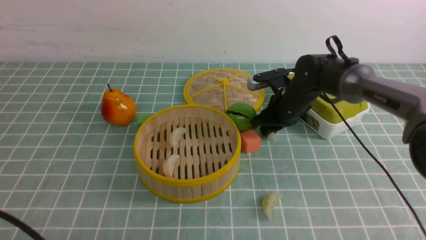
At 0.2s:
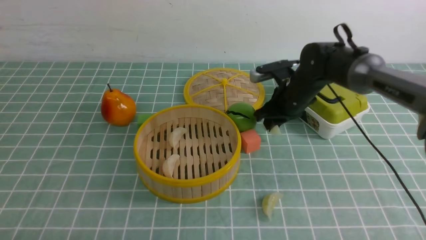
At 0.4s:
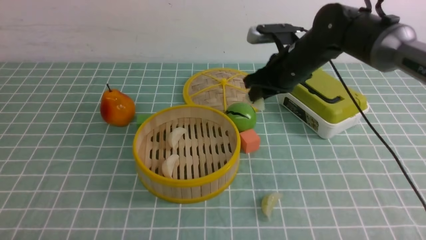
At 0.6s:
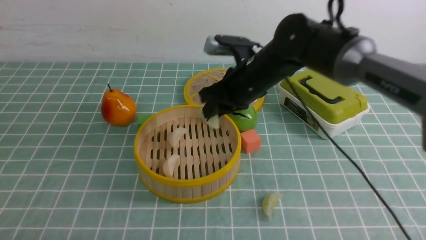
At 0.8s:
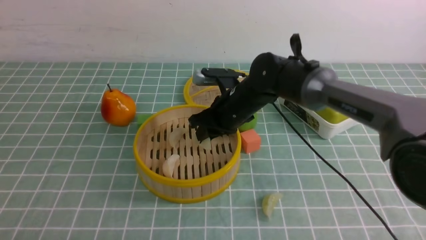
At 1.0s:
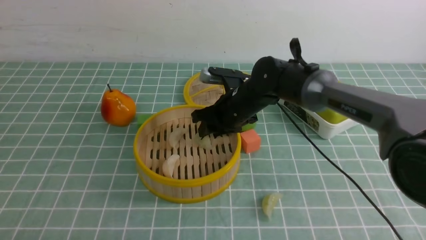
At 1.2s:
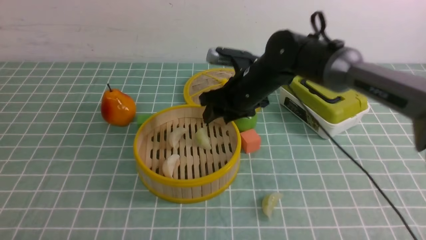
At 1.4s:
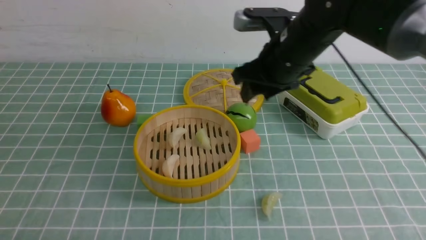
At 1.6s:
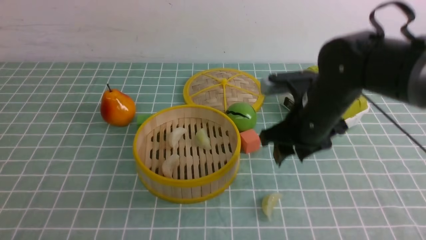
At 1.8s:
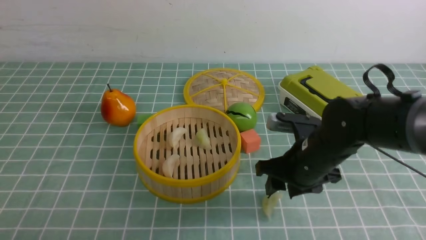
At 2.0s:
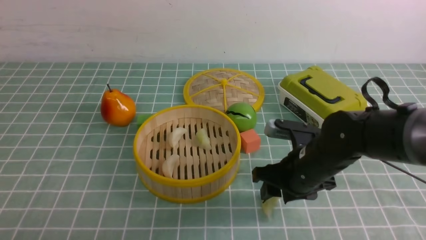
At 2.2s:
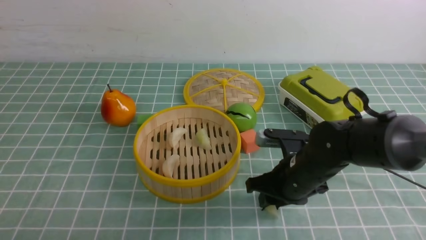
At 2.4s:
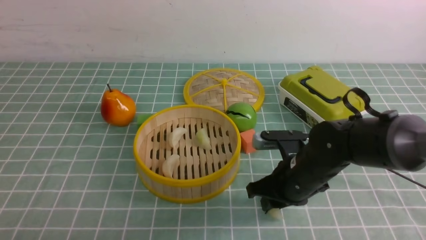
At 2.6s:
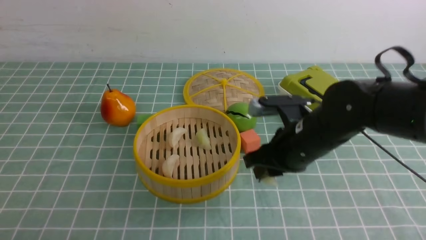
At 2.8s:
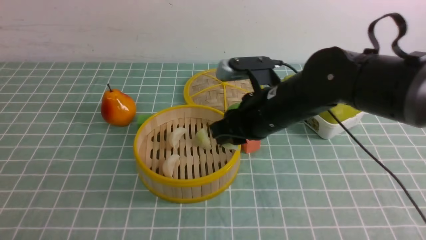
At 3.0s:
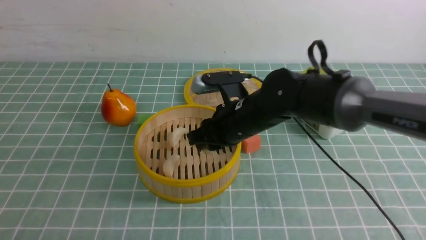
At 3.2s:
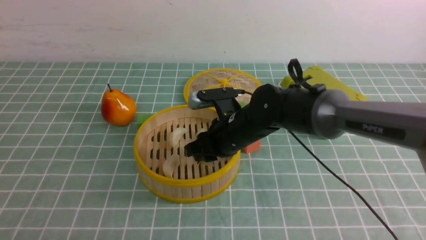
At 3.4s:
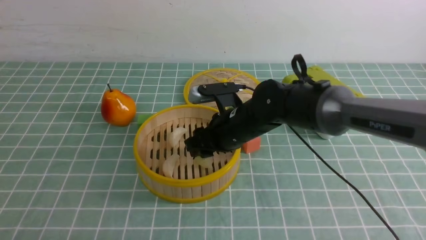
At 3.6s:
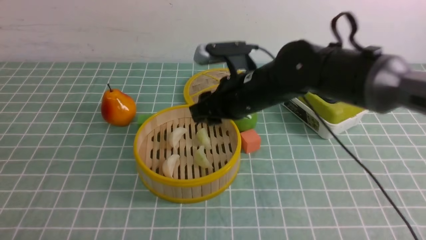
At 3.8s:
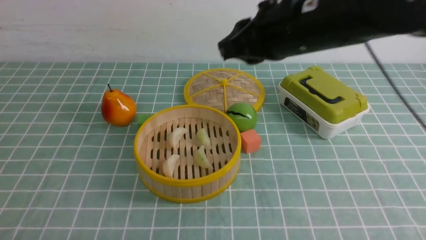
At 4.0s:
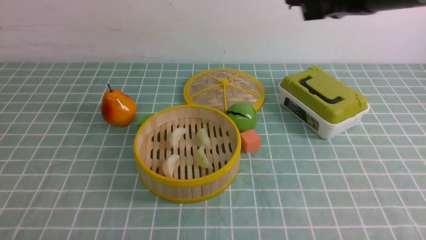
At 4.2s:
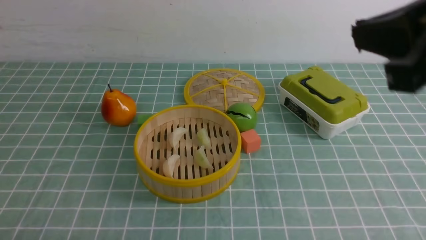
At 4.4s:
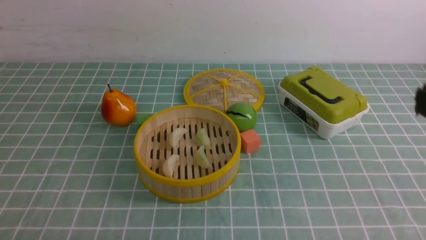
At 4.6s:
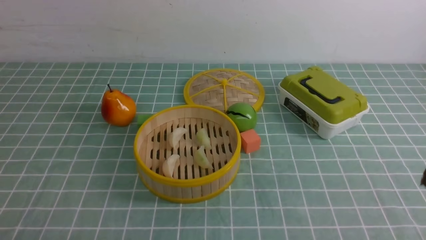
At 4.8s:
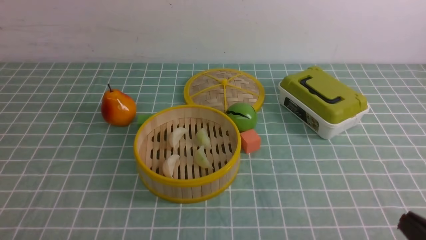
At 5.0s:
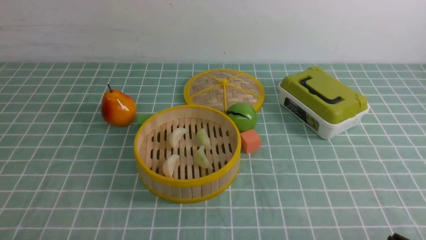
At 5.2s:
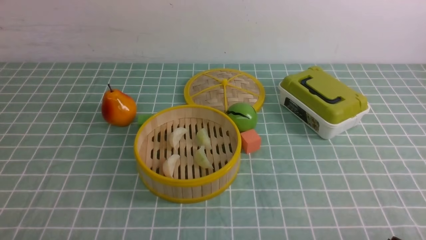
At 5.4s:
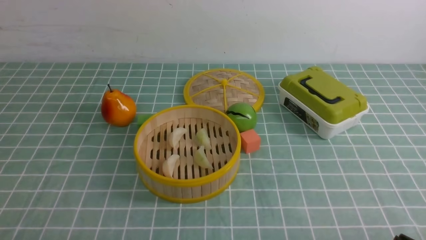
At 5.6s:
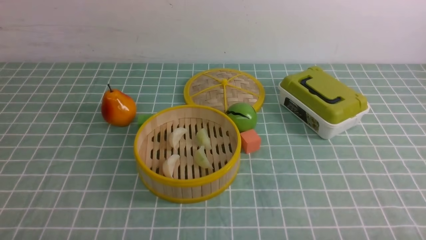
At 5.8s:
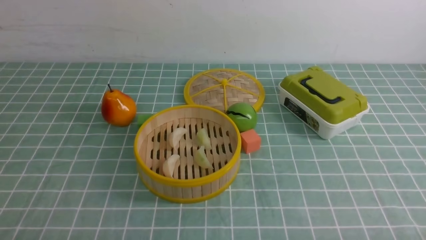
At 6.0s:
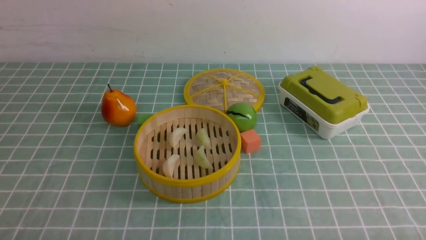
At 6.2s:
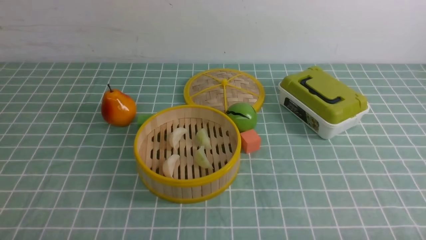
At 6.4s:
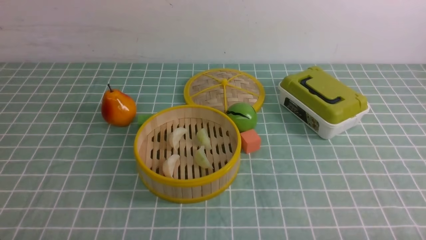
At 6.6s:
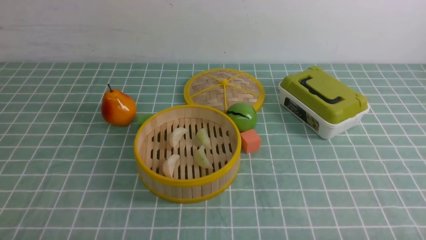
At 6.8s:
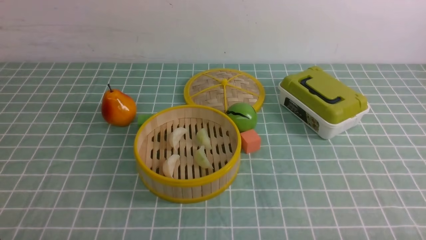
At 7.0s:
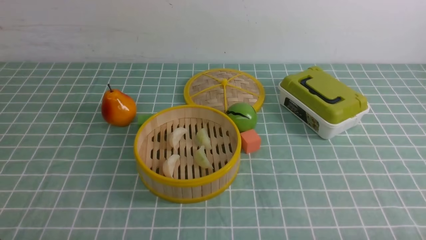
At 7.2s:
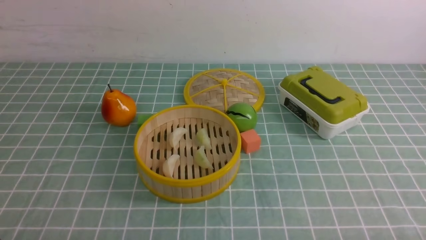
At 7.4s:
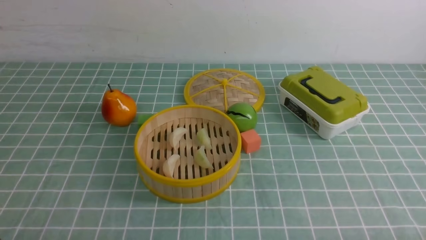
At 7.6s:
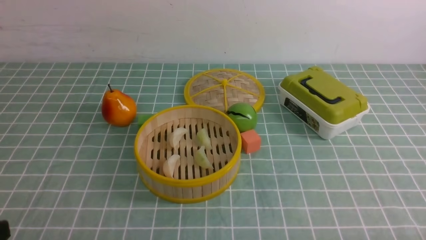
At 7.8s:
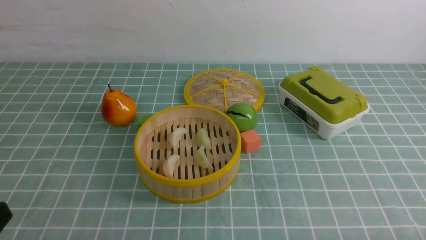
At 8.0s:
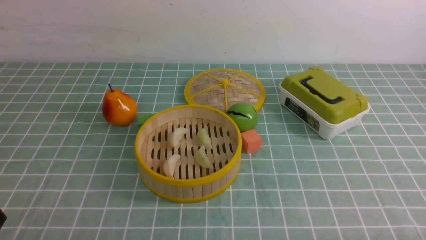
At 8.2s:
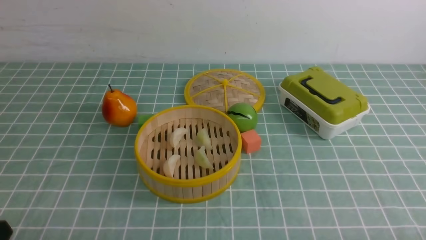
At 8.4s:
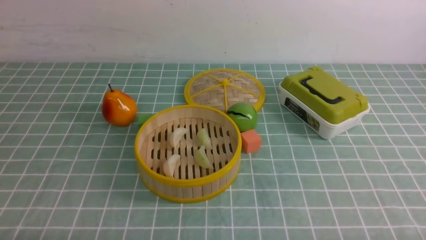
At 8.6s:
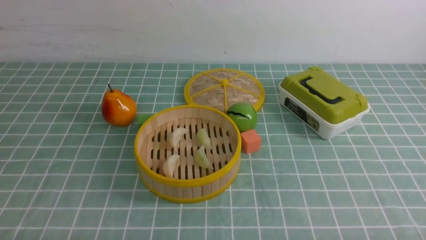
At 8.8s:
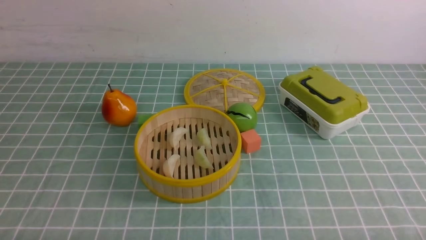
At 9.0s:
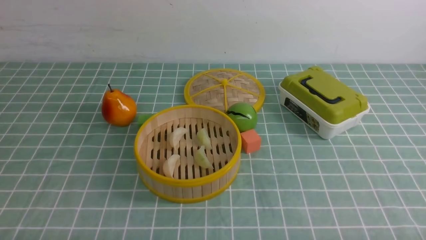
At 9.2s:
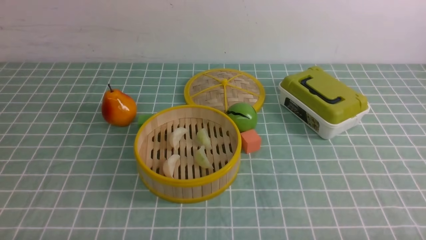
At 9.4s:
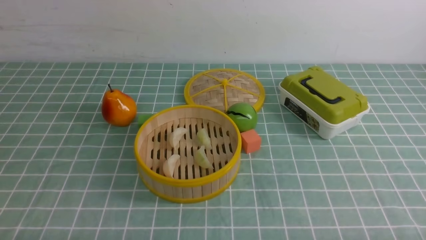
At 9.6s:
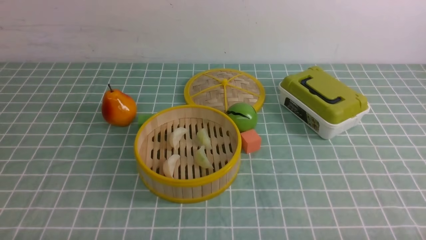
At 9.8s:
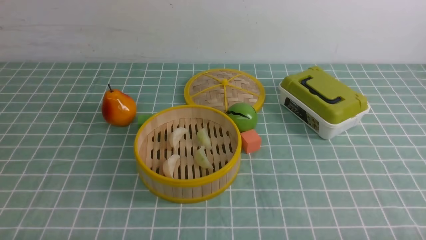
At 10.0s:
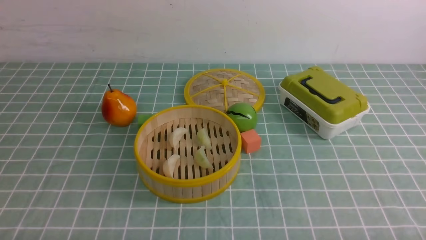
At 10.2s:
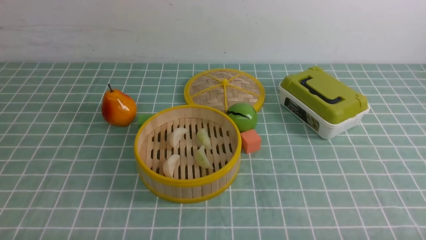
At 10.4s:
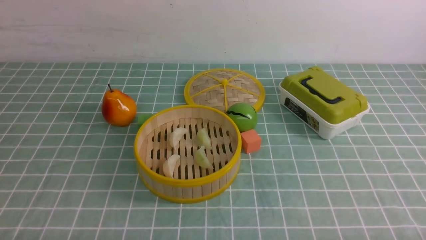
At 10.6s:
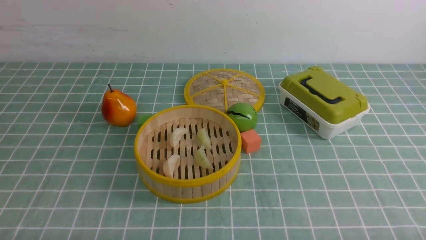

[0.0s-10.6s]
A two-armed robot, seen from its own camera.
Task of the whole recording: put the dumplings into the steamer on the table with the blue tablecloth.
Step, 0.6s to 1.4s: use the right arm to put the dumpling into the steamer.
Step, 1.6s to 2.6s: use the right arm to grab a dumpling.
Step, 3.0s to 3.6s: use the right arm to put the dumpling into the steamer.
0.0s to 1.6s: The right gripper goes some 15 cm backward and upward, and opens its fingers.
1.6s to 3.0s: The right gripper heads to the left, covering about 10 cm, and closes up.
3.0s to 4.6s: The right gripper moves backward and to the right, about 35 cm, and closes up.
9.0s to 10.6s: Both grippers stay put.

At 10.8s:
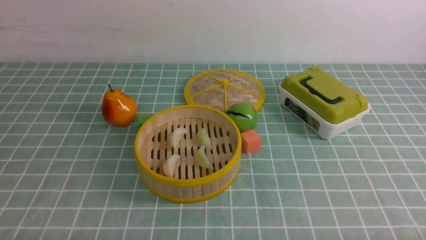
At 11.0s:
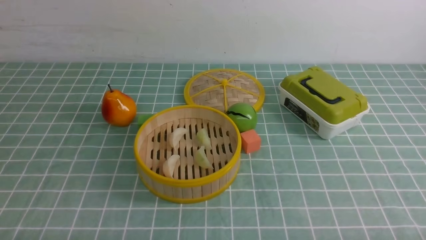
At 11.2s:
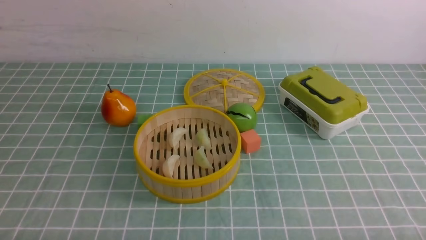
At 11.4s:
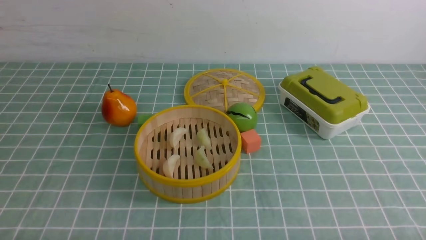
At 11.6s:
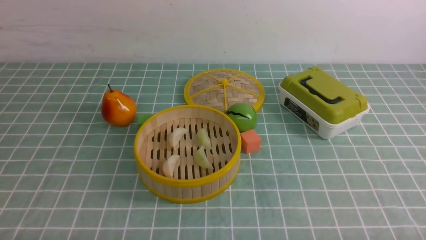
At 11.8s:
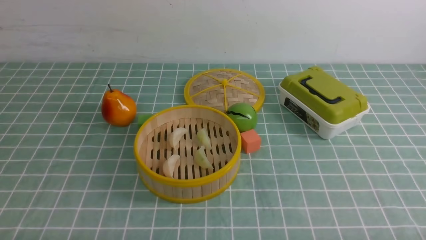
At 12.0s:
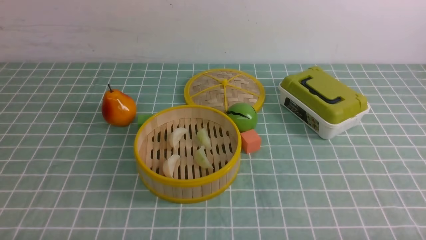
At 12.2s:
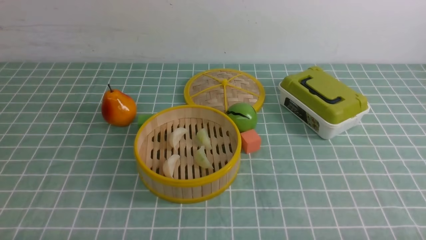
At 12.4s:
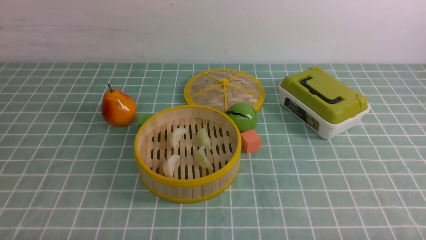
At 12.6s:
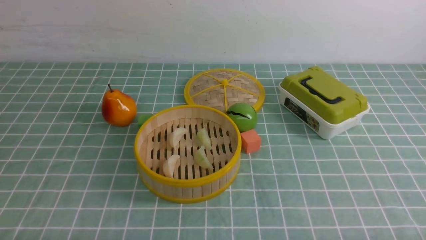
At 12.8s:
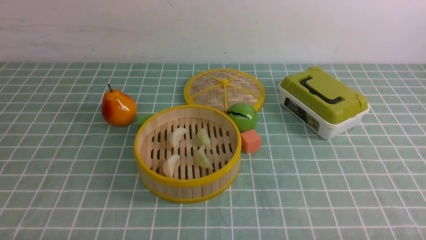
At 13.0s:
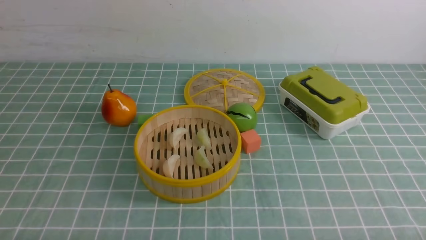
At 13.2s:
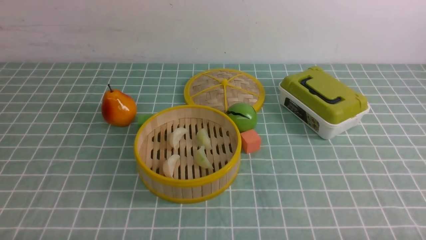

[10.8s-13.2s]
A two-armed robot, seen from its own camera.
Task of the whole recording: put the dumplings into the steamer on the table with the blue tablecloth.
10.8s to 13.2s: Both grippers stay about where they are.

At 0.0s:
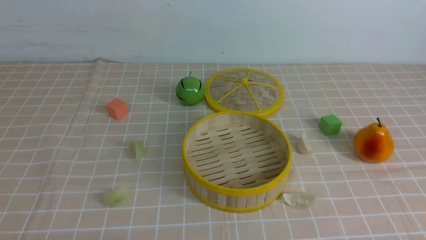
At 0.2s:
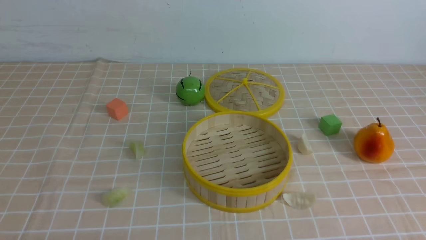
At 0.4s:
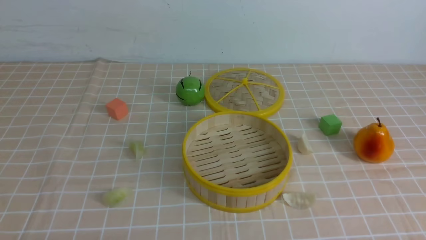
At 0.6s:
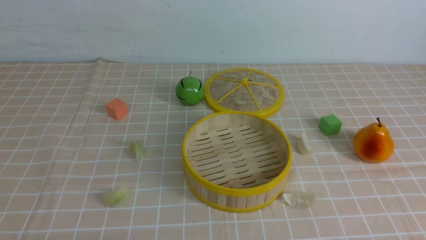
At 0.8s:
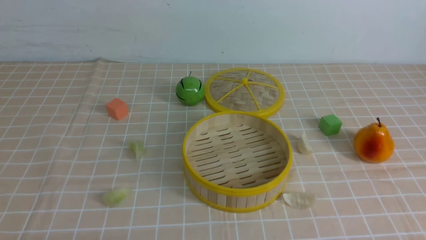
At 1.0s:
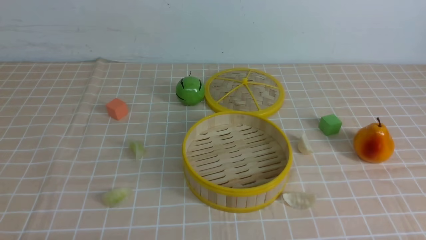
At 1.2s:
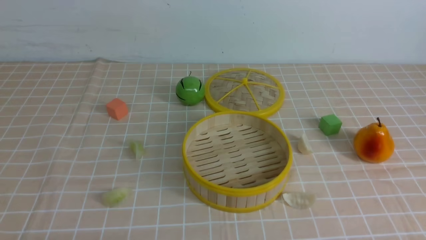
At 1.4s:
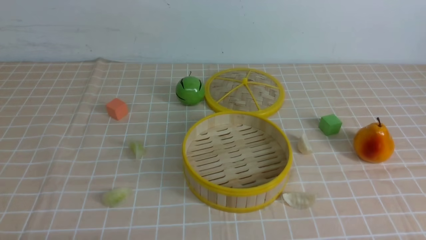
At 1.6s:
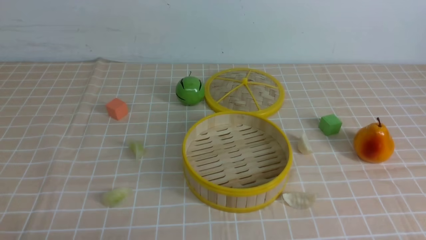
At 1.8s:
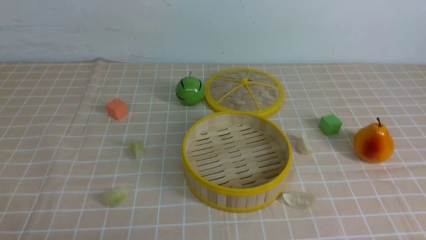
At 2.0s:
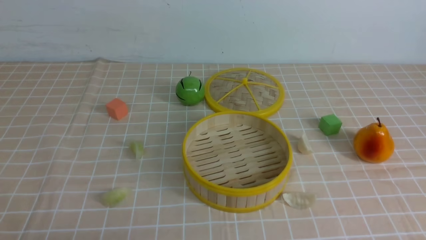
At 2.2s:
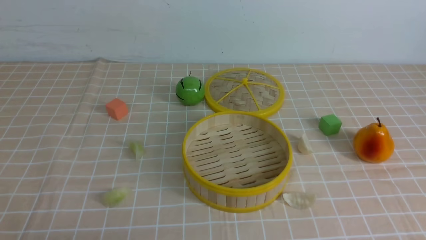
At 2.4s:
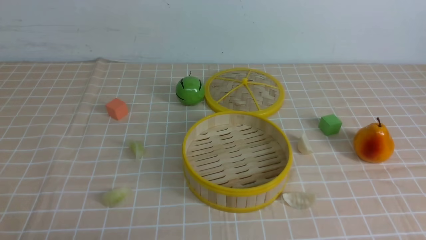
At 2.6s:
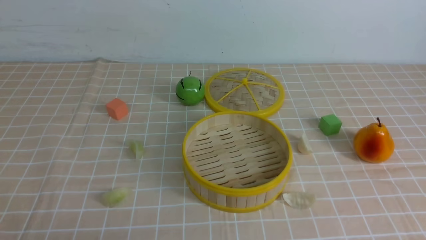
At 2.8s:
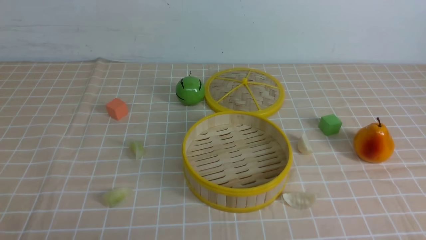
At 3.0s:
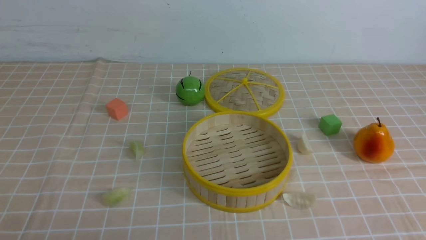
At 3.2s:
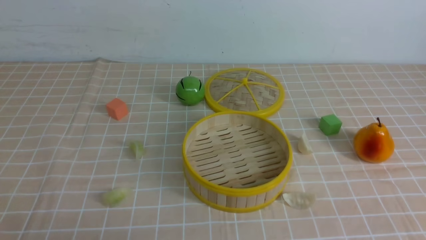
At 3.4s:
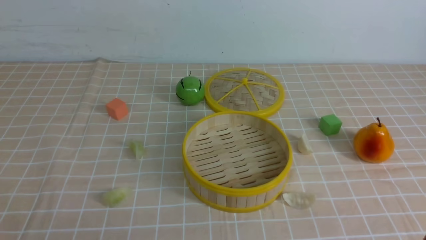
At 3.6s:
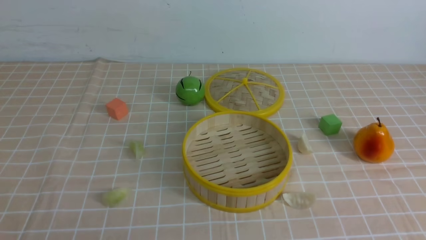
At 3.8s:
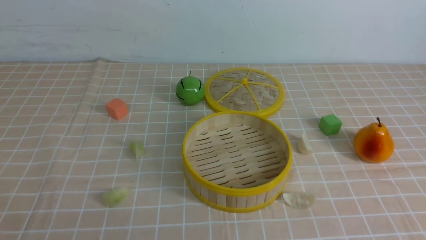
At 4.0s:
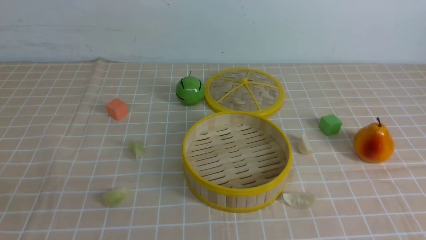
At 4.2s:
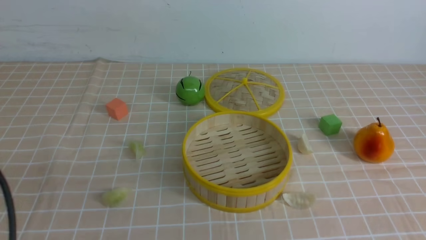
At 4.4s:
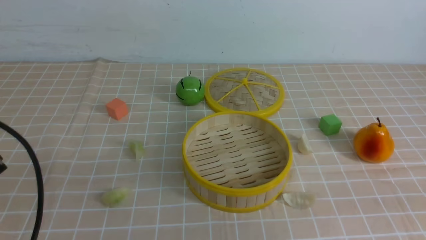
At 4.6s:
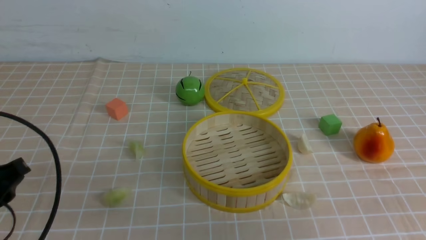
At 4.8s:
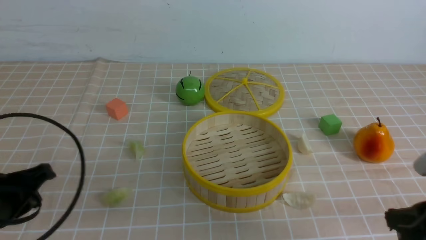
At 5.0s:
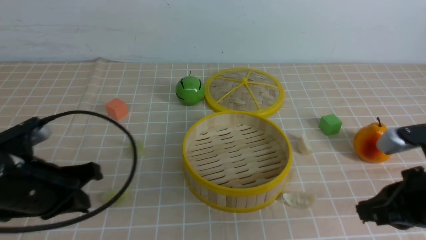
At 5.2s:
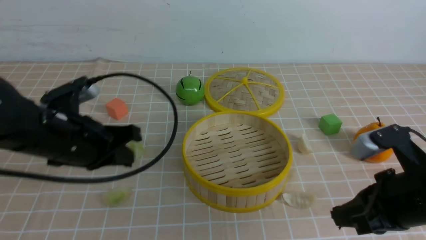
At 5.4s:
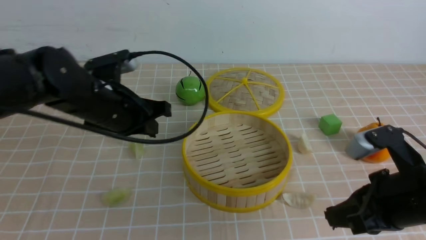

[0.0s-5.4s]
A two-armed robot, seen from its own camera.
Task of the whole recording: put the dumplings into the steamer on the table with the brown tablecloth.
4.0s to 5.4s: The right gripper moves forward and to the left, about 20 cm, while the left gripper is displaced forward and to the right by some 30 cm, and closes.
